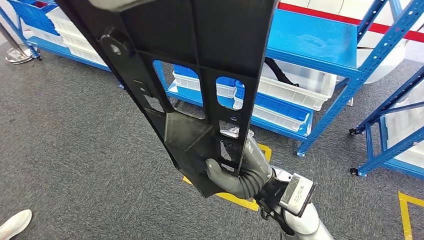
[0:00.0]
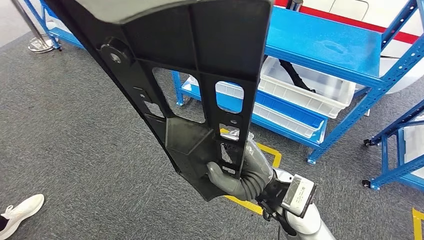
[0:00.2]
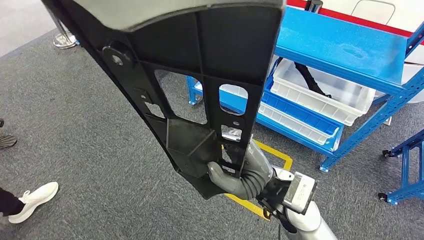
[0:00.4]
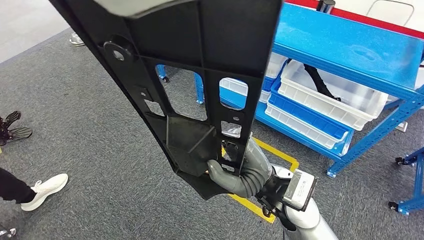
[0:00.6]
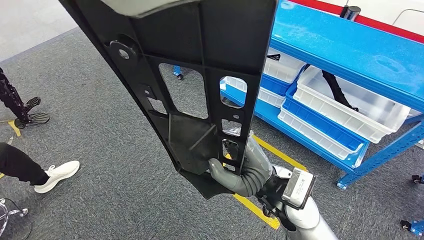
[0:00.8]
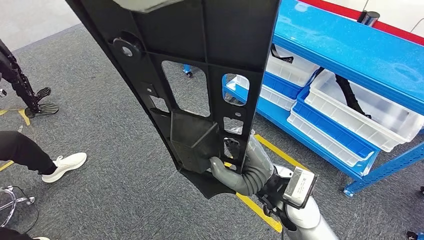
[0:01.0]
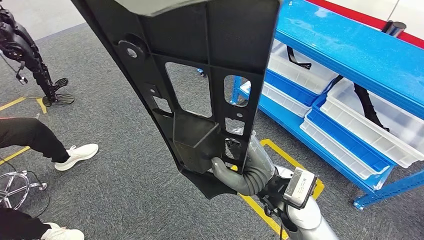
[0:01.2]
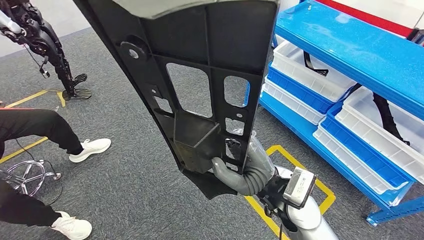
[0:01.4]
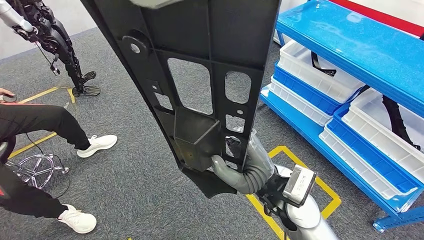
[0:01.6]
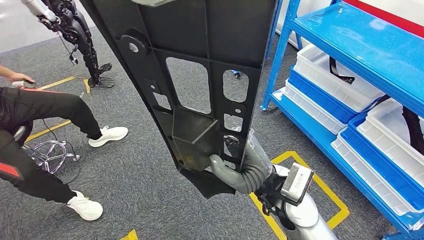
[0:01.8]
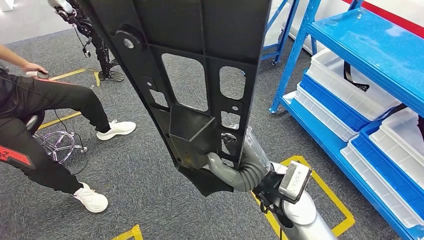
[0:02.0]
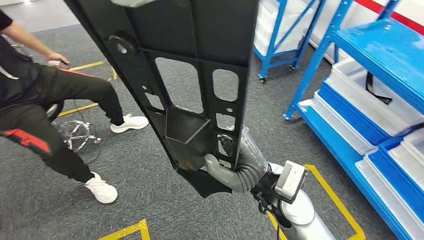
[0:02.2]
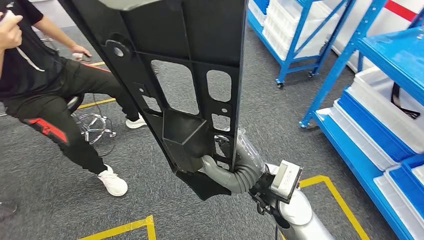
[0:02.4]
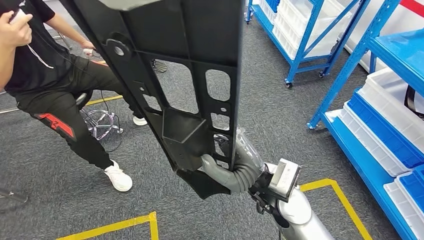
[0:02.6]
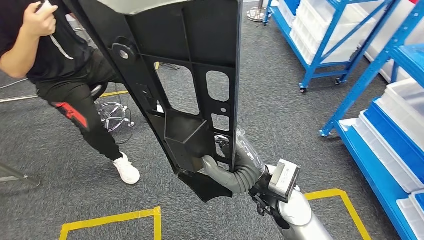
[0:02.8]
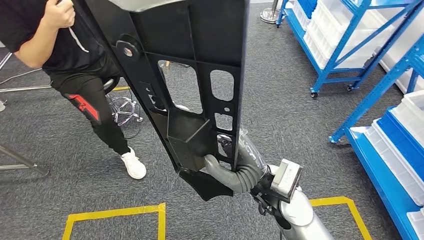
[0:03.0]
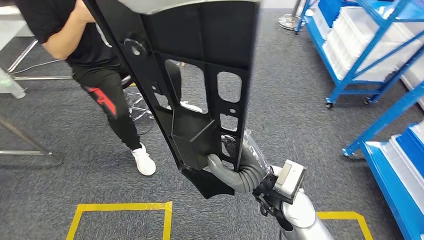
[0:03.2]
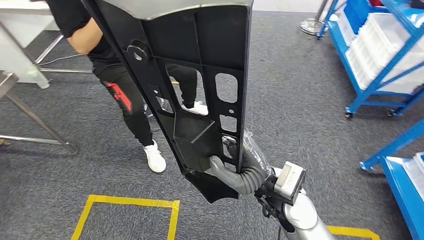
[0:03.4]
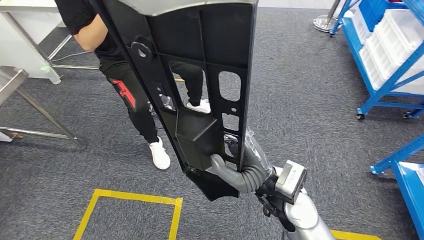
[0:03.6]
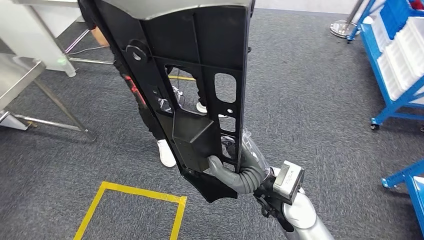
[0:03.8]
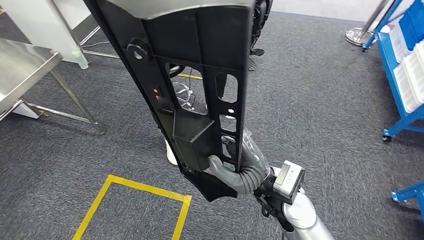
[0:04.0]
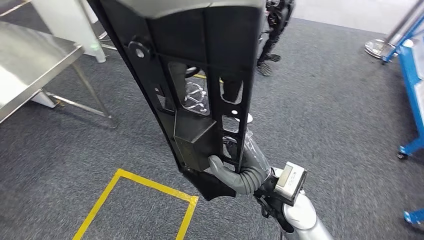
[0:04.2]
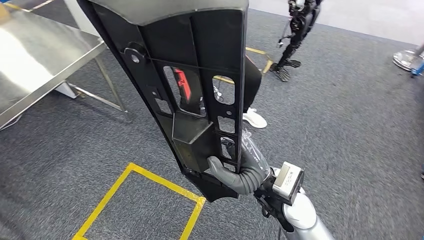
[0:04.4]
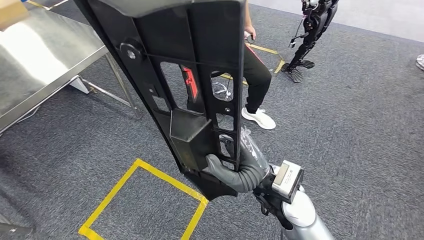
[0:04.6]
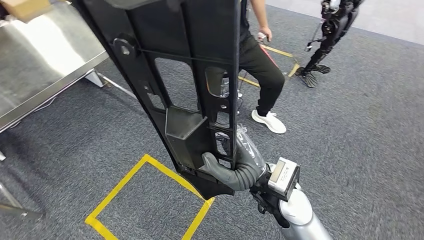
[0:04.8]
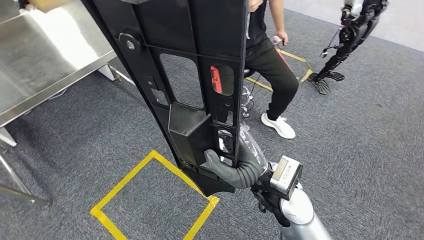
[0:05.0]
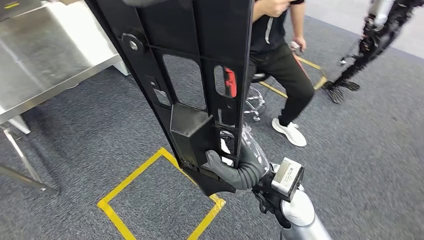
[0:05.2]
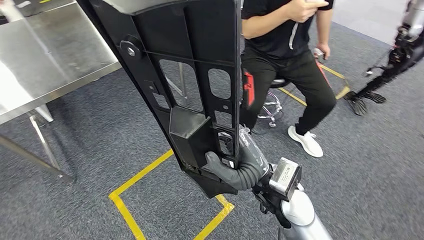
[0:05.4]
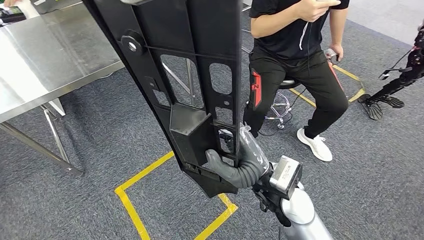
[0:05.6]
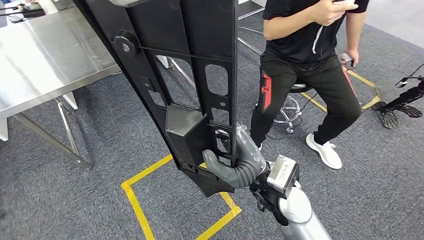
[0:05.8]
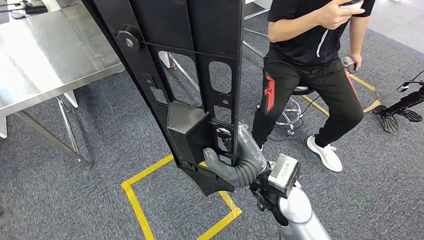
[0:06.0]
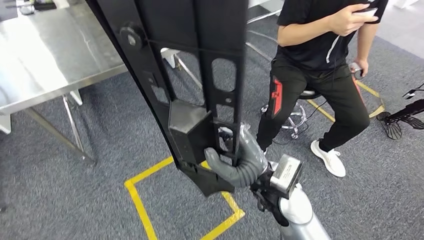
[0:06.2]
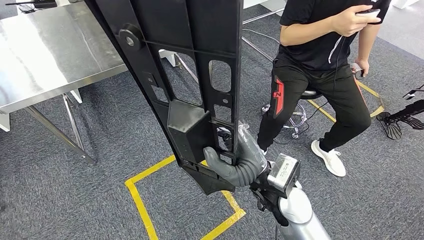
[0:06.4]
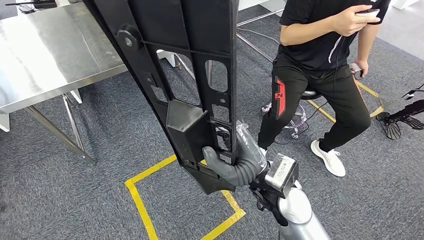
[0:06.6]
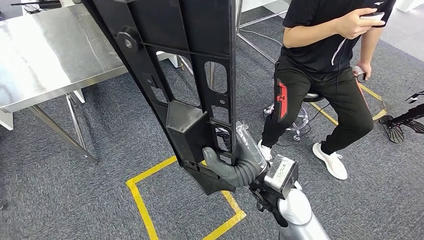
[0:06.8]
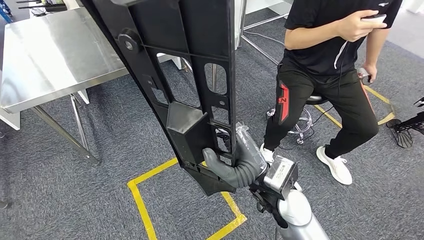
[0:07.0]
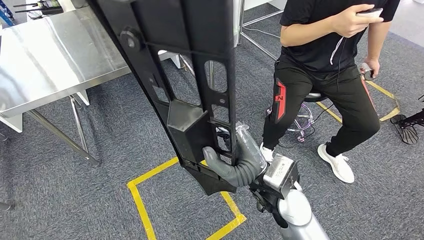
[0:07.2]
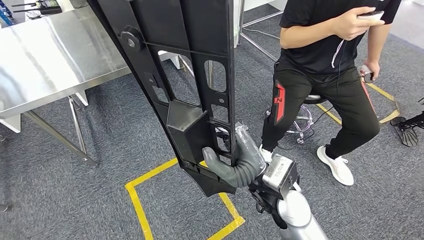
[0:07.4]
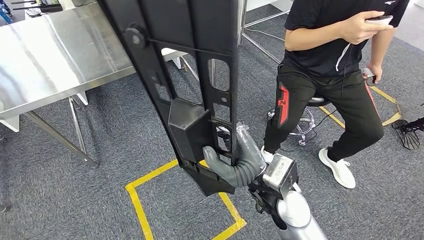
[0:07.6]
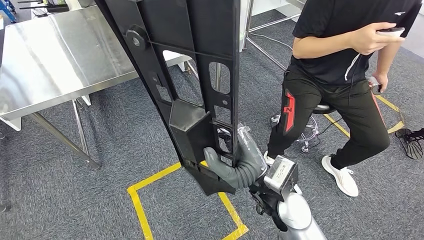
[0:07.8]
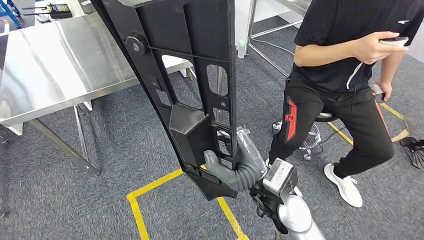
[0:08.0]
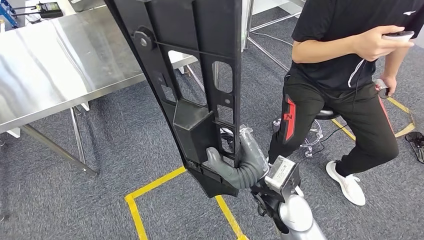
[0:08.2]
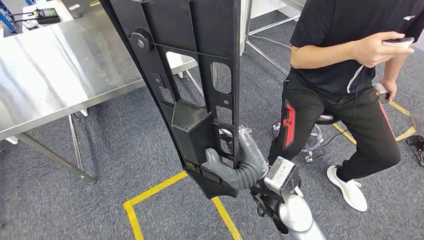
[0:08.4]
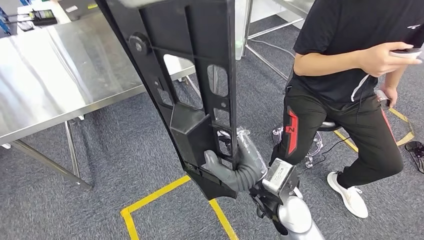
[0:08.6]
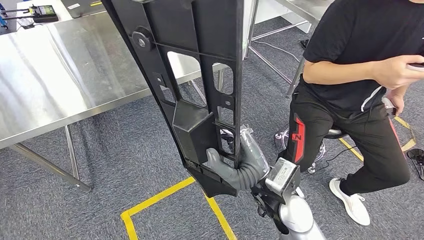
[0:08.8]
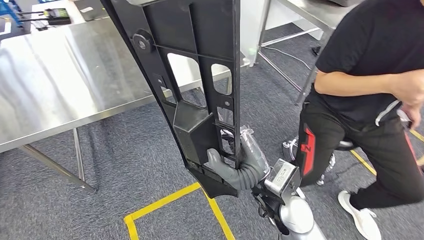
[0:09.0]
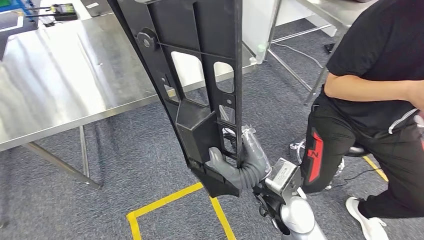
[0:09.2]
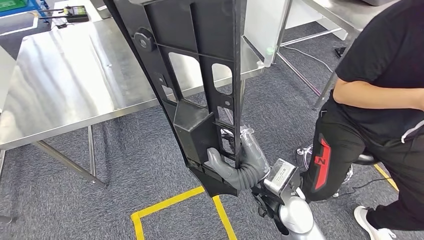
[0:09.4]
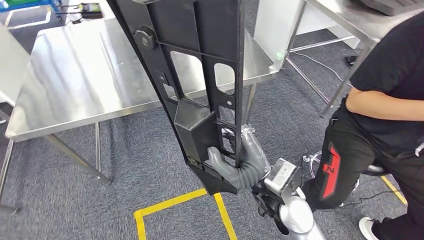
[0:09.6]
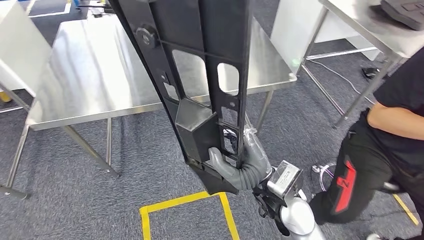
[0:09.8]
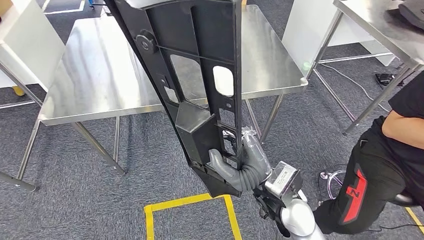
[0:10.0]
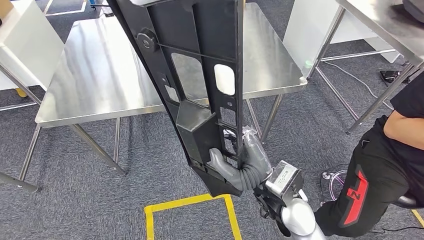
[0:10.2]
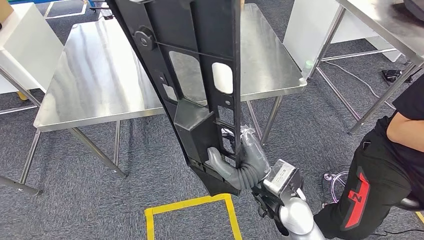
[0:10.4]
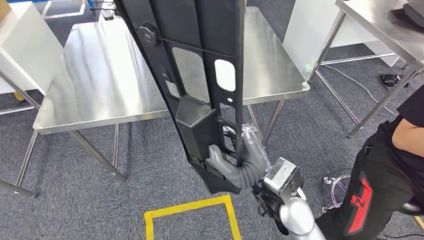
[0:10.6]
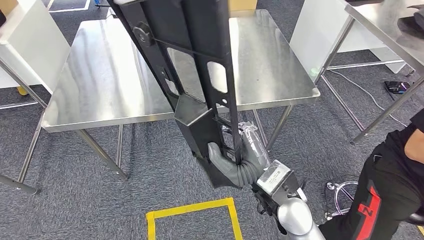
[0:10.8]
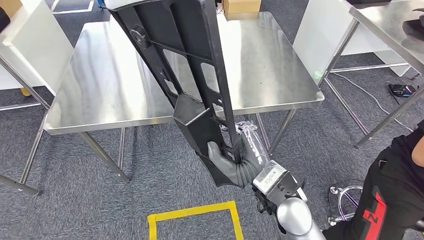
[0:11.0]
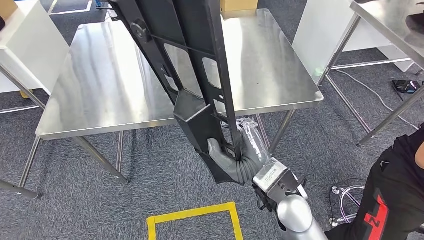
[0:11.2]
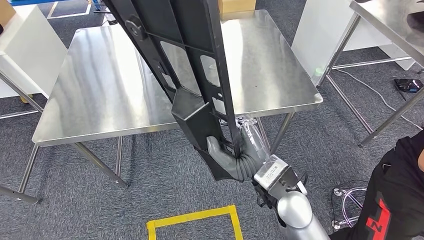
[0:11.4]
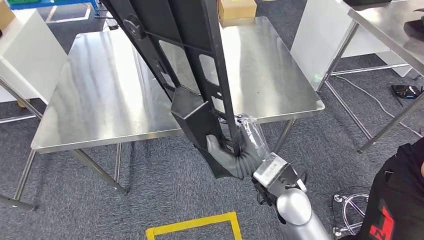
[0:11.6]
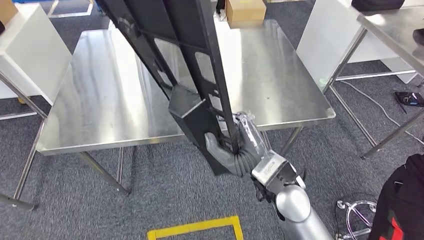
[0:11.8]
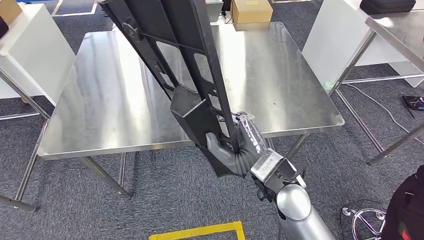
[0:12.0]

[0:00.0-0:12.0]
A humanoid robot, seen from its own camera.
Step, 0:00.0 to 0:11.2: Move the large material to the workbench.

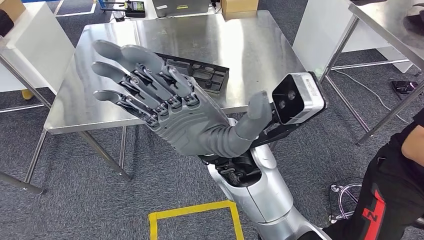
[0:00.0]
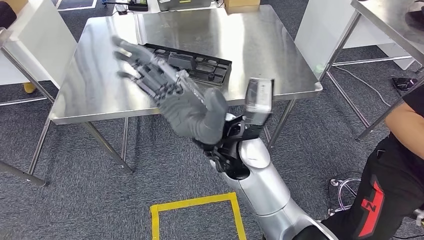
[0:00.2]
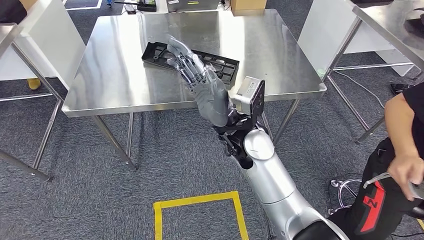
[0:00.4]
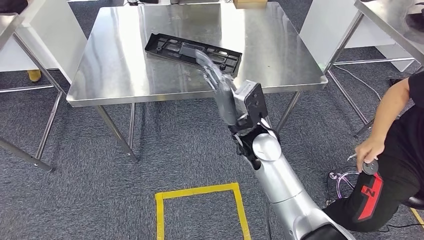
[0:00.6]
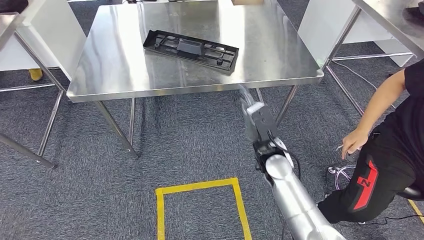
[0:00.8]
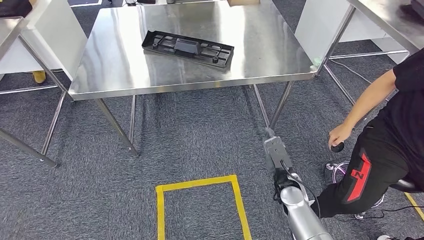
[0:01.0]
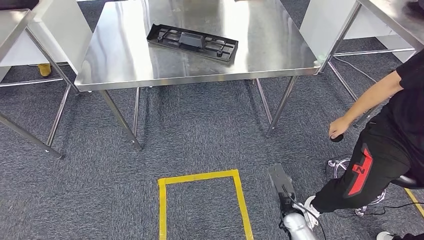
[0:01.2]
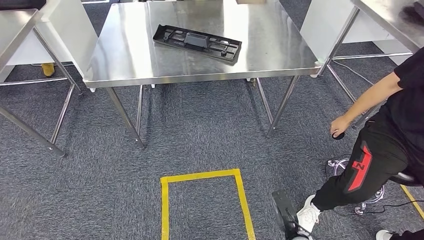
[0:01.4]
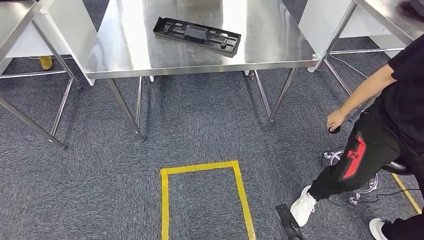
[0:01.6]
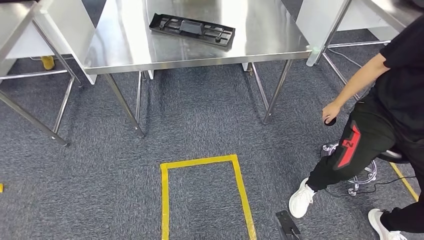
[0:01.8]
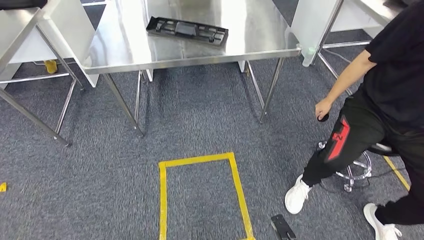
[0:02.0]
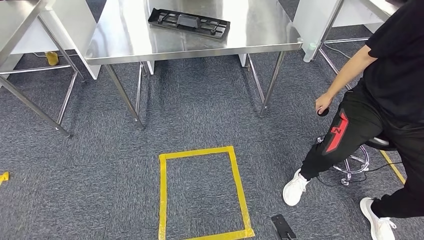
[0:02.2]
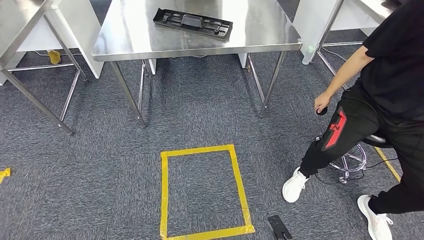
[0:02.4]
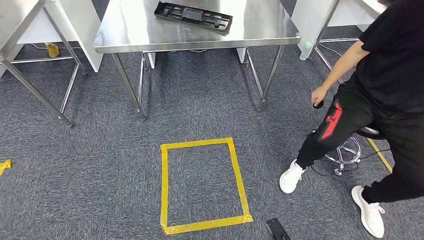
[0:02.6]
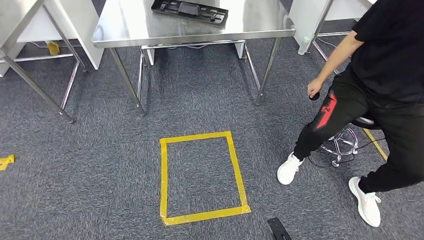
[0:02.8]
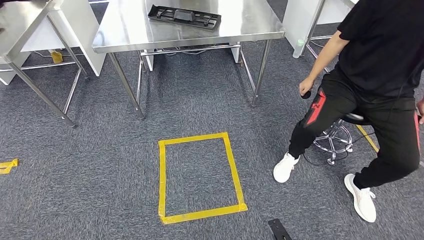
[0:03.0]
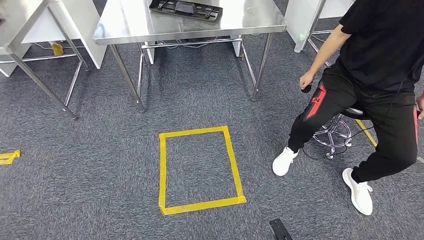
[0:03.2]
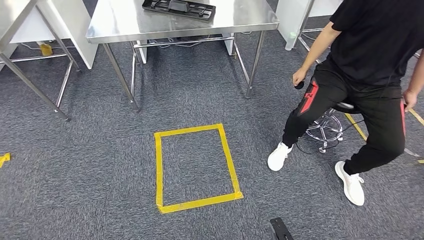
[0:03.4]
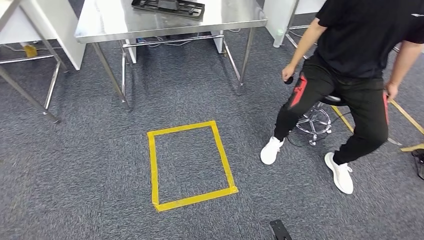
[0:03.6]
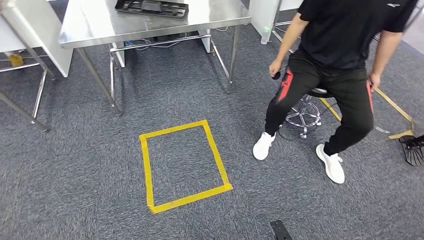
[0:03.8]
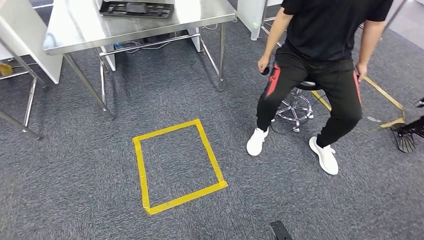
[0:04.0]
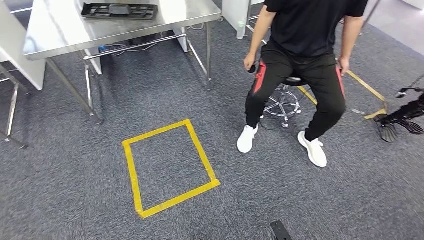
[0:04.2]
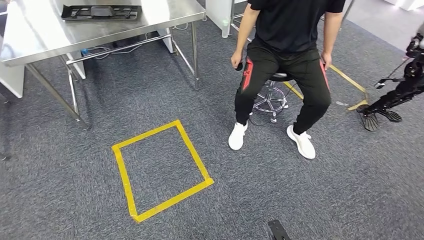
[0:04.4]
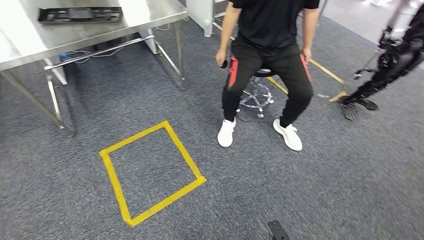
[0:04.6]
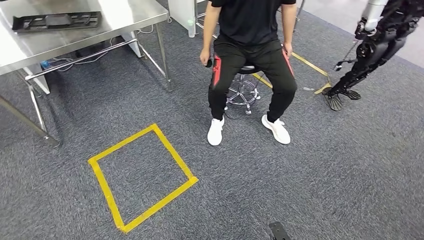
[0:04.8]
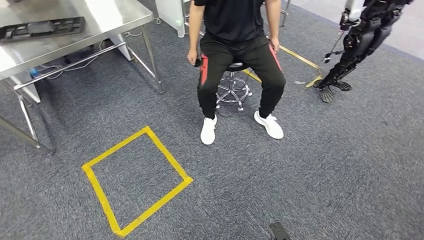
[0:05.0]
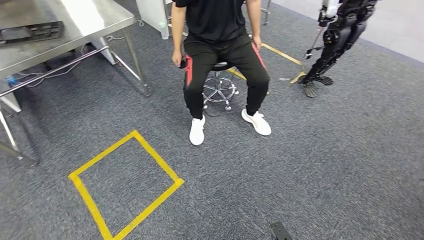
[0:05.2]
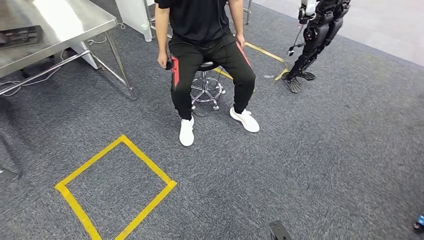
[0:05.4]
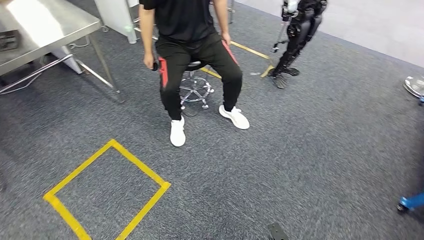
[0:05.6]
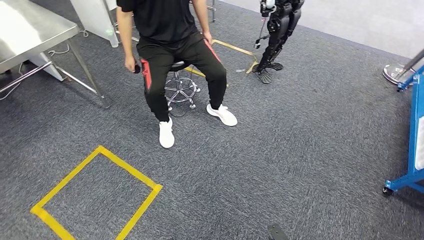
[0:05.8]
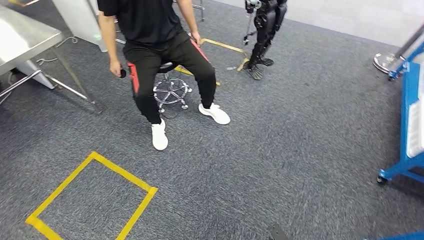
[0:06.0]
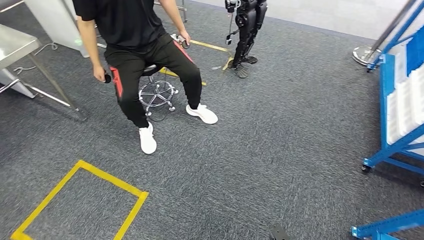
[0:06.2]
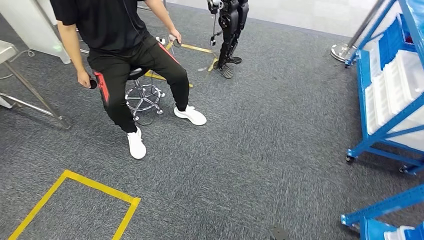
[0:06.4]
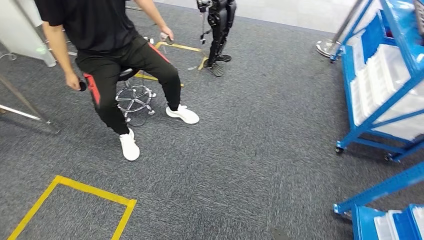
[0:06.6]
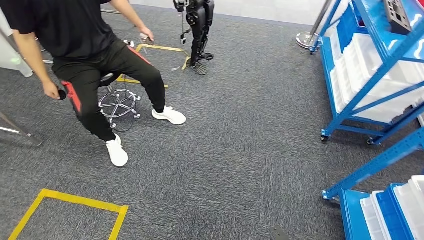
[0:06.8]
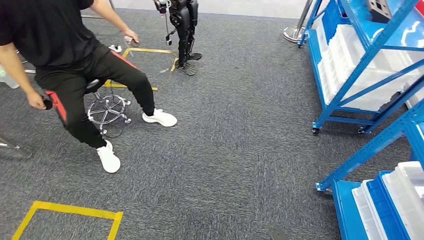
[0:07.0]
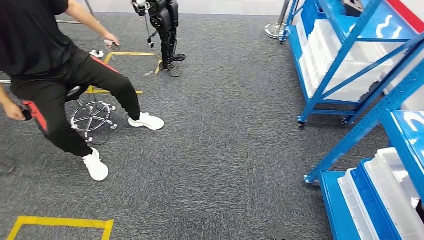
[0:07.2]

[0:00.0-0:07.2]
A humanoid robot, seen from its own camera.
Step, 0:00.0 to 0:03.4: Insert the large material into the corresponding slot on the workbench.
